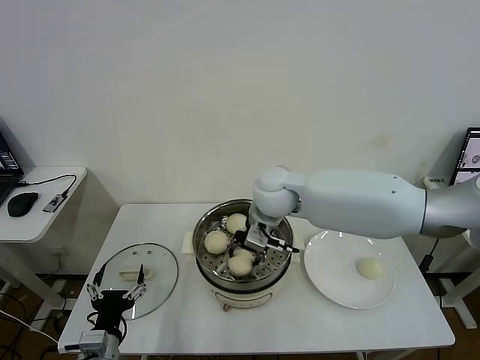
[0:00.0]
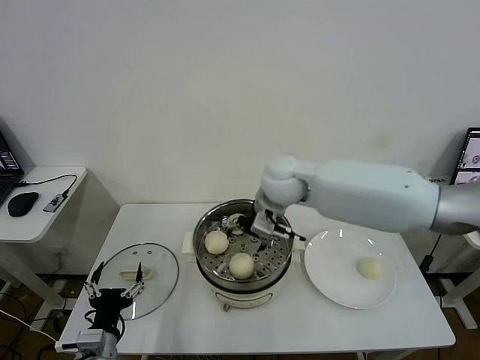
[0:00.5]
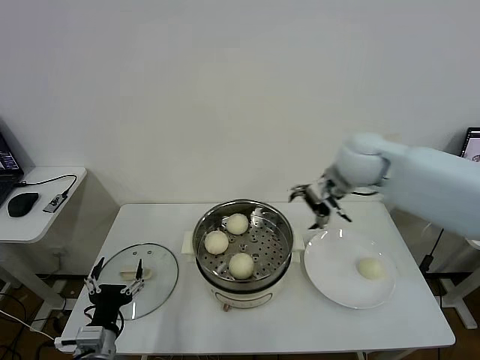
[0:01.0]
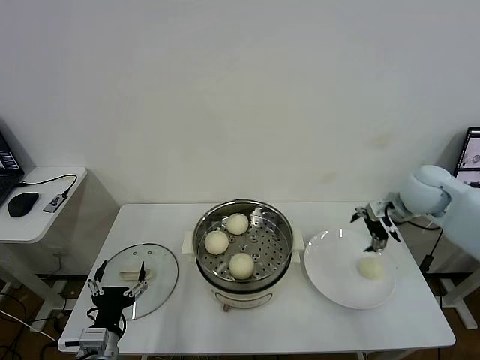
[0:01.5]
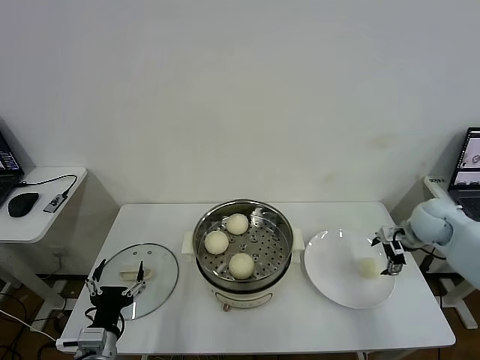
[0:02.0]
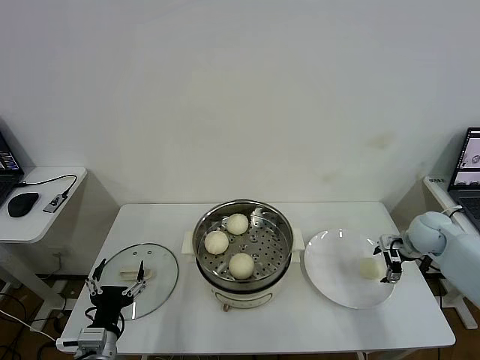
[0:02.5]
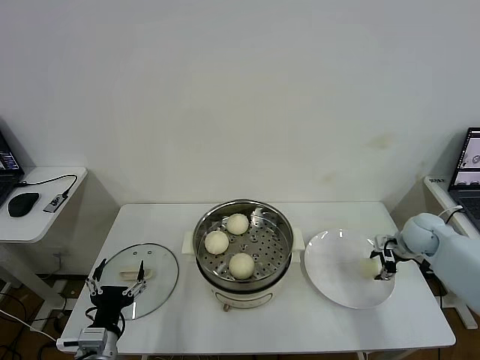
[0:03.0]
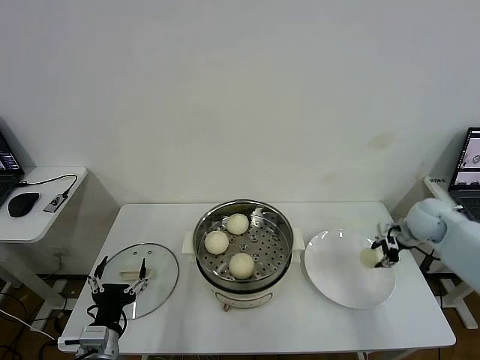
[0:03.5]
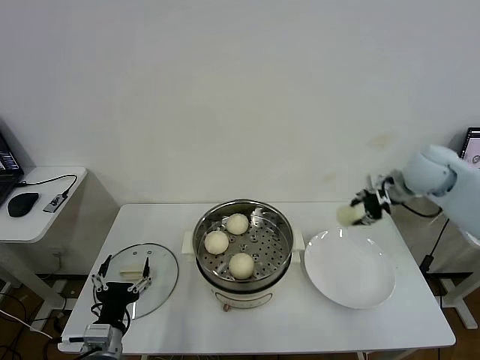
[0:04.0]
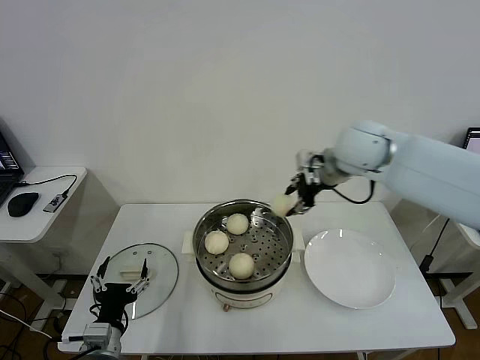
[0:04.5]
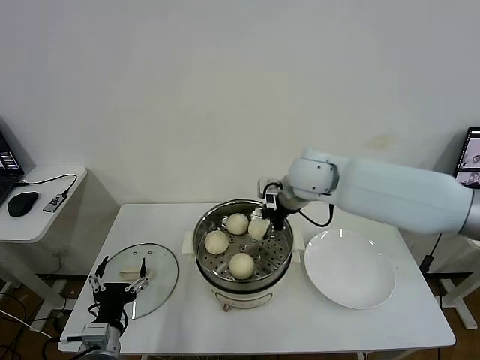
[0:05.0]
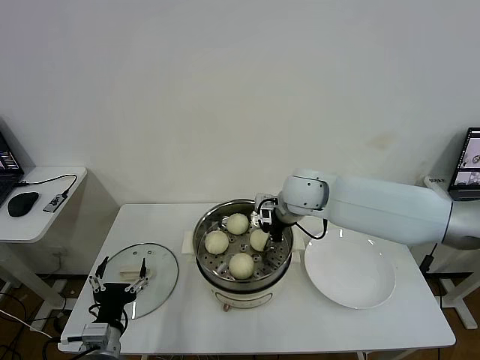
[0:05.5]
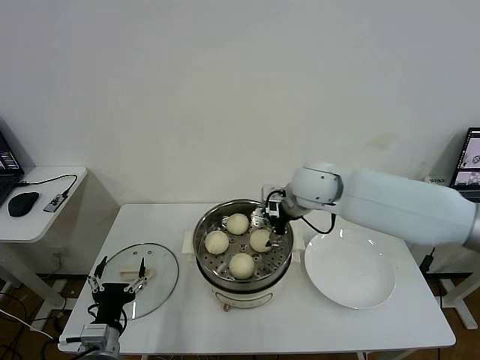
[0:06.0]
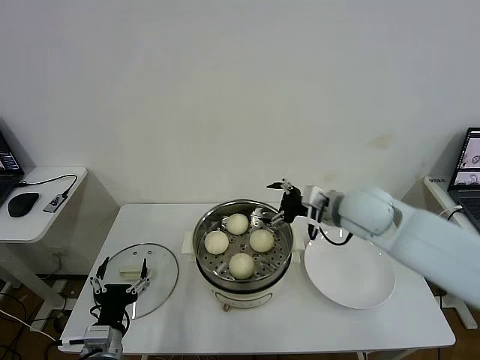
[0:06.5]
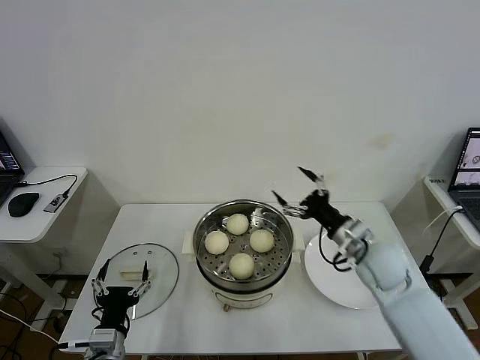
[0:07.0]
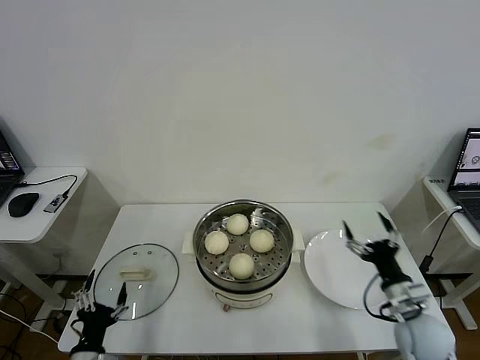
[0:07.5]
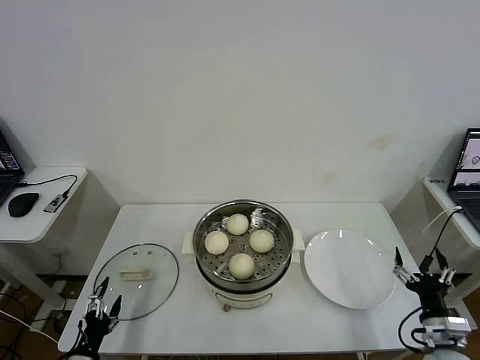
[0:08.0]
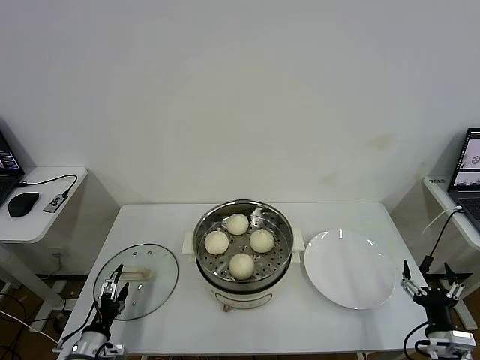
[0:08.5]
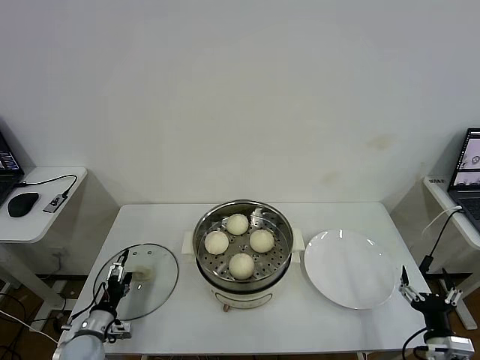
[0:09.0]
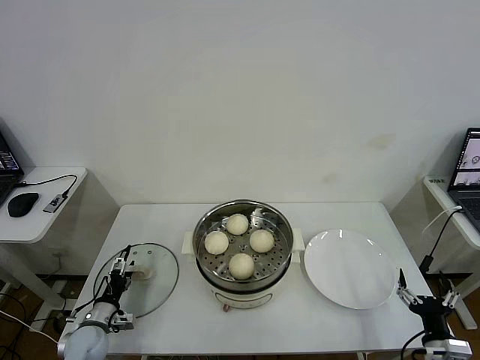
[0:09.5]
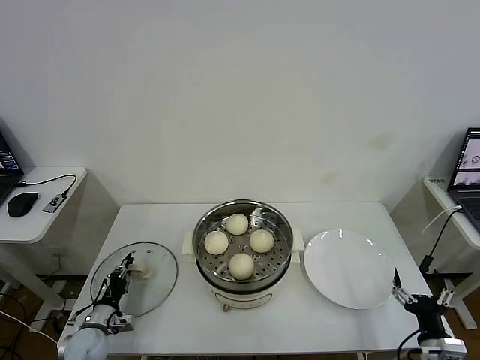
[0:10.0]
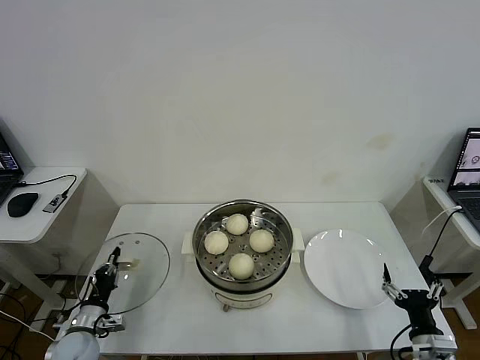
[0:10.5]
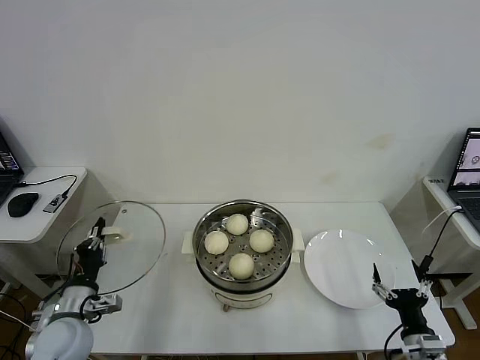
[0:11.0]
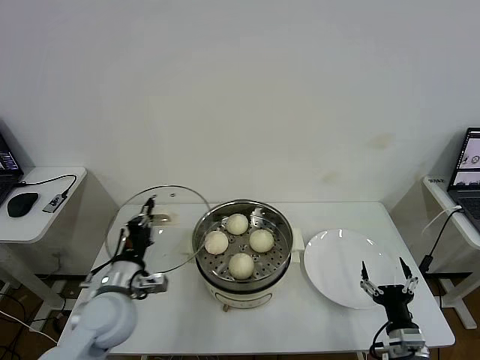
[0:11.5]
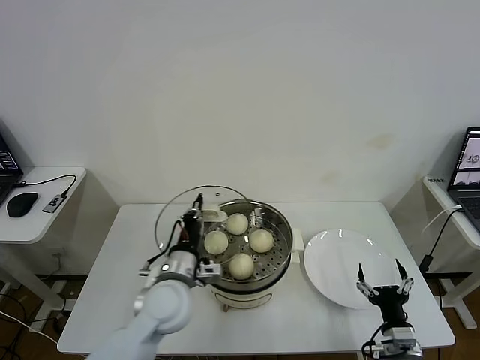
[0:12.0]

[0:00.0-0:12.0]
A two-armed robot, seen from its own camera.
Task of the whole recording: take steamed baozi put them in steamer then cover it.
Step, 0:00.5 to 0:03.0: Grasp the baozi in the plate with right gripper.
Step, 0:03.5 to 0:06.0: Place the baozi on the steamer with right gripper.
Step, 0:06.5 to 0:10.0: Grasp the pot lid with left gripper.
0:00.0 to 0:02.0: The right gripper is displaced to the right by approximately 35 cm, and opens.
0:02.0 to 0:04.0: The right gripper travels upward and to the left by about 15 cm, and closes.
0:04.0 to 0:06.0: The right gripper shifts roughly 20 cm to the left, and opens up.
0:06.0 to 0:08.0: The right gripper heads backward, to the right and downward, covering approximately 50 cm. The left gripper shifts some 10 cm to the left and downward.
0:08.0 to 0:10.0: The left gripper travels forward by about 15 cm, and closes.
0:10.0 to 0:12.0: The left gripper moves to the right and upward, about 30 cm. The right gripper travels to the left by about 5 cm.

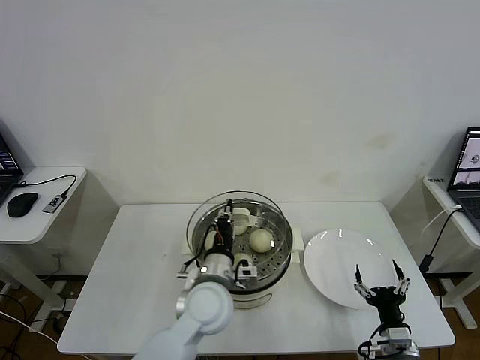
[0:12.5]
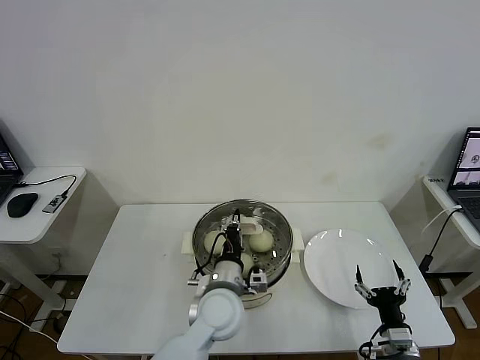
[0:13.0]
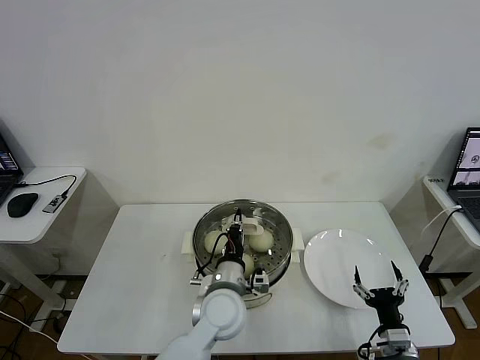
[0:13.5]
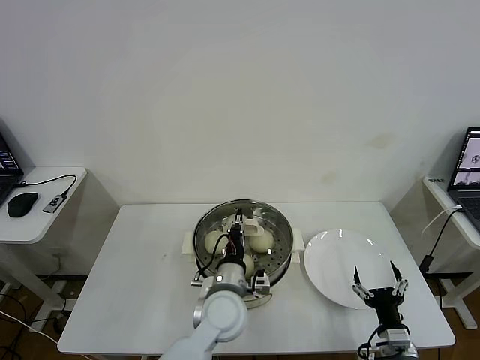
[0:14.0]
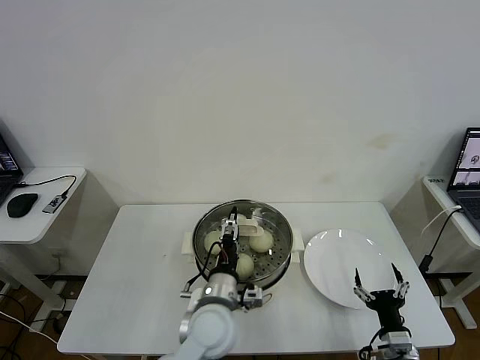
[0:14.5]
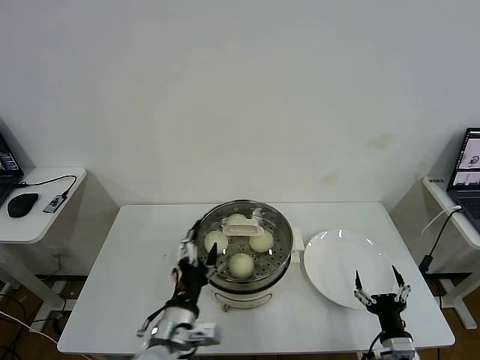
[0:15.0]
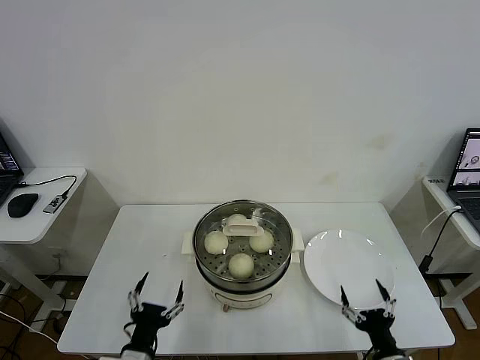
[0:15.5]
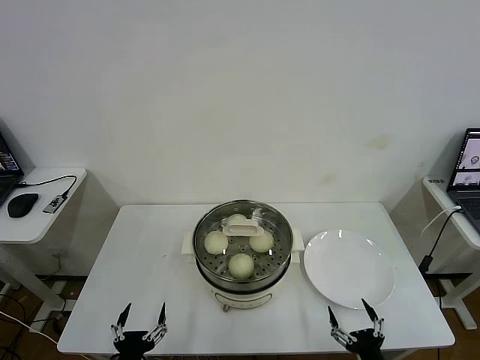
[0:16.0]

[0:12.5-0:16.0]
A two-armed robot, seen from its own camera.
Task of the whole recording: take steamed baozi put them in steamer then cover it.
Step, 0:12.5 to 0:14.5: Place the pot lid on the steamer with left gripper.
0:12.5 to 0:14.5: The left gripper opens its fingers.
0:14.5 to 0:16.0: The right gripper goes about 10 cm backward. The left gripper is displaced to the left, backward and downward by about 30 cm.

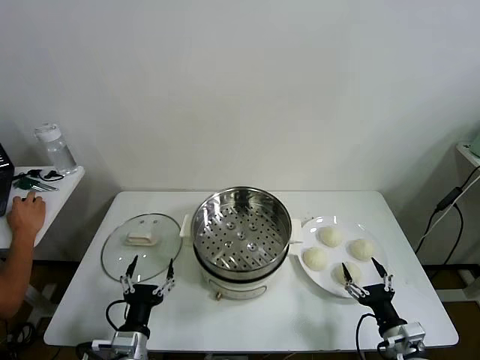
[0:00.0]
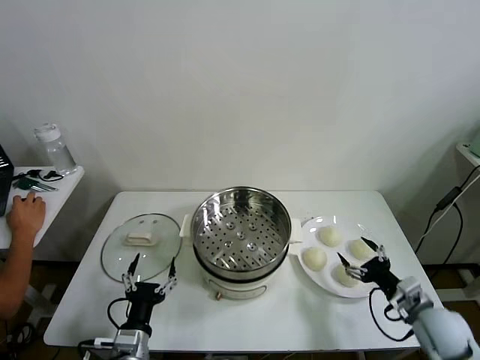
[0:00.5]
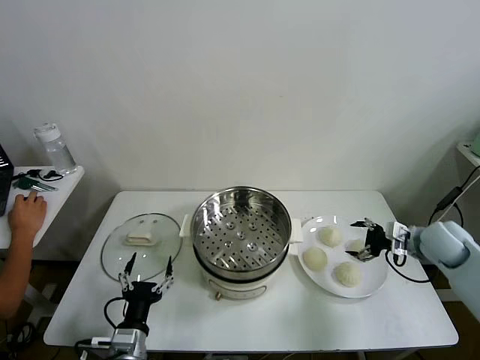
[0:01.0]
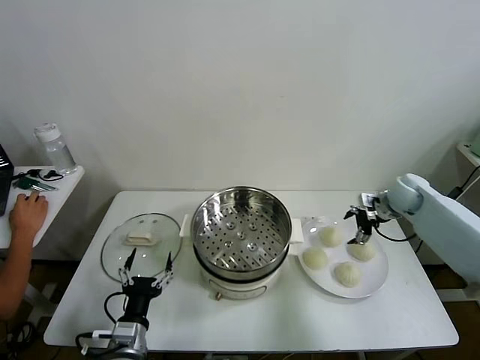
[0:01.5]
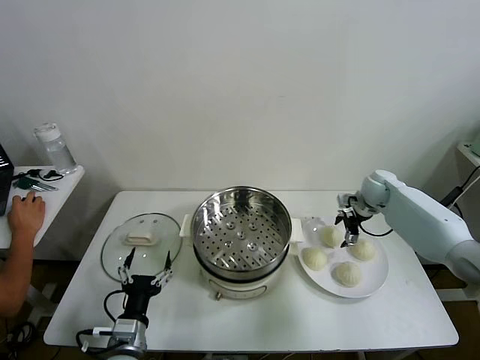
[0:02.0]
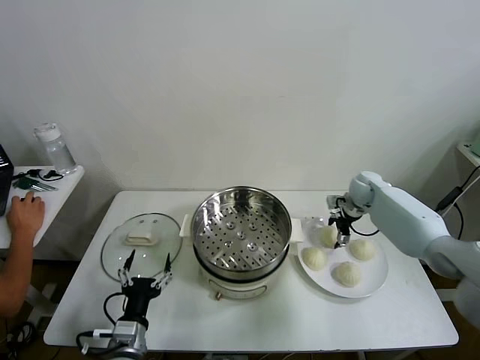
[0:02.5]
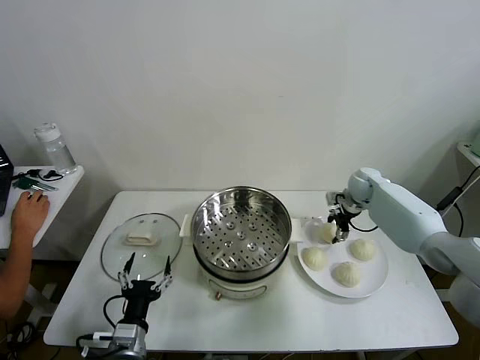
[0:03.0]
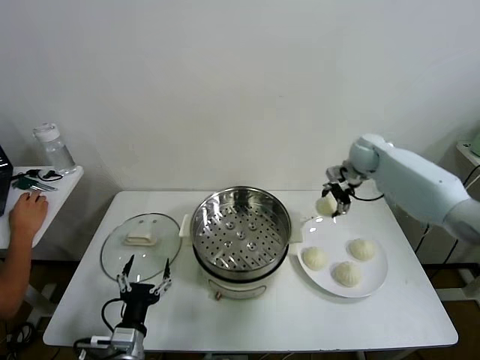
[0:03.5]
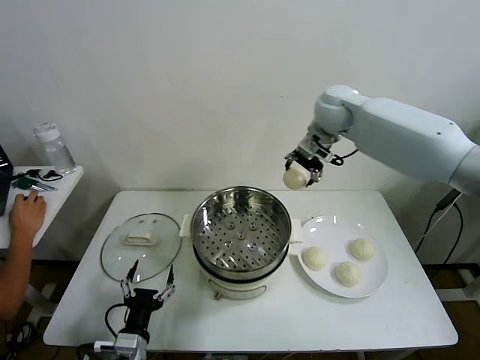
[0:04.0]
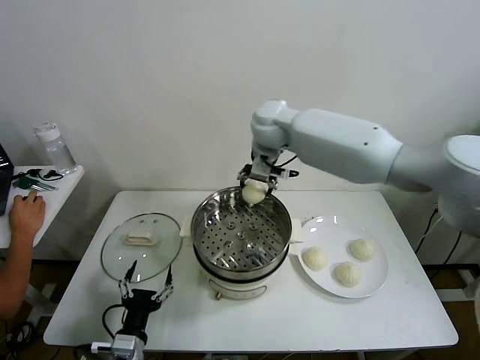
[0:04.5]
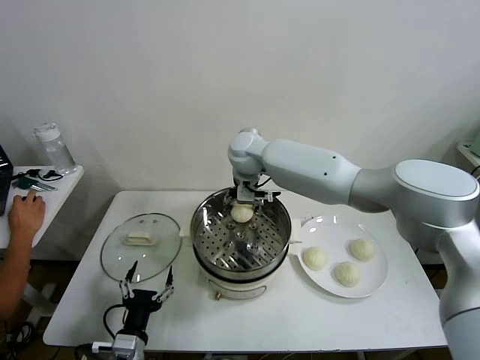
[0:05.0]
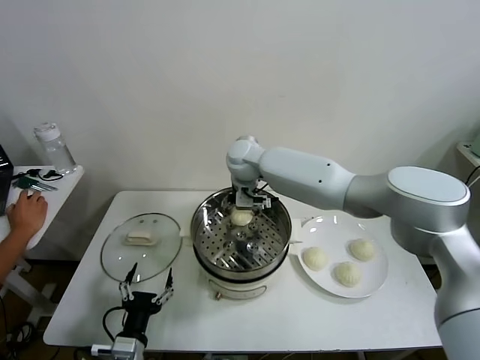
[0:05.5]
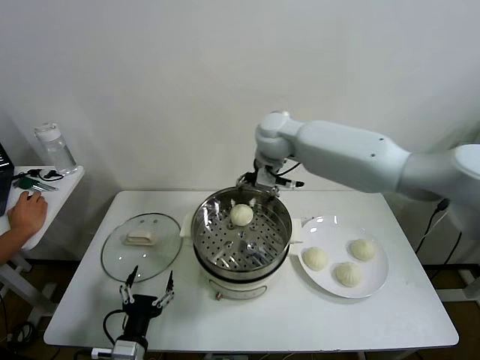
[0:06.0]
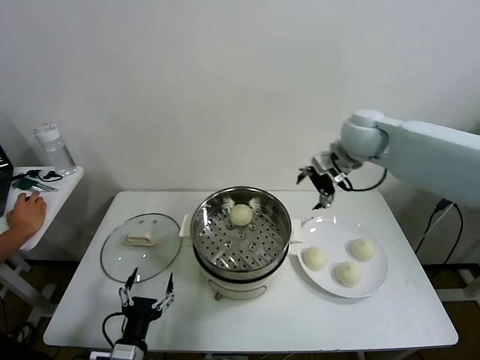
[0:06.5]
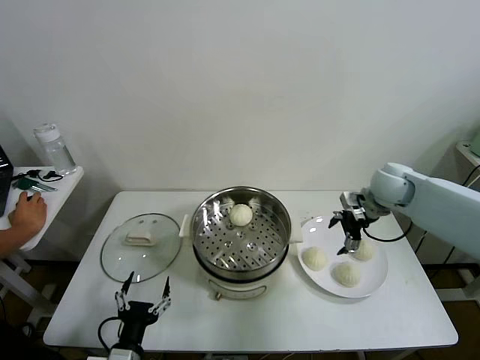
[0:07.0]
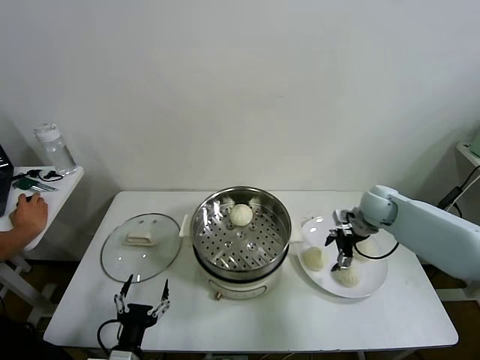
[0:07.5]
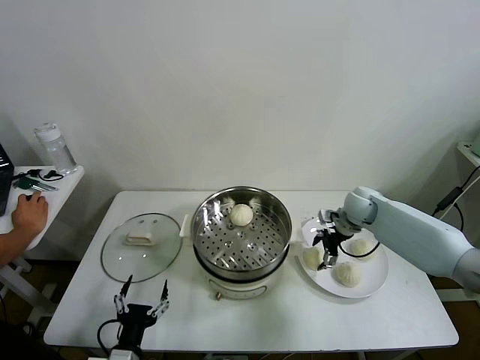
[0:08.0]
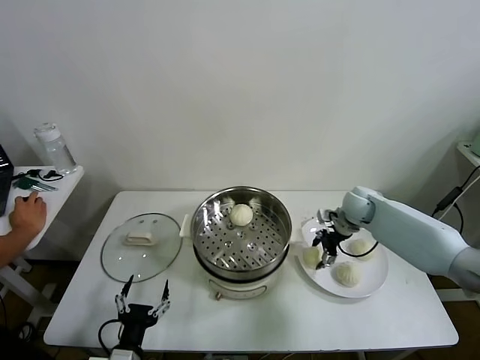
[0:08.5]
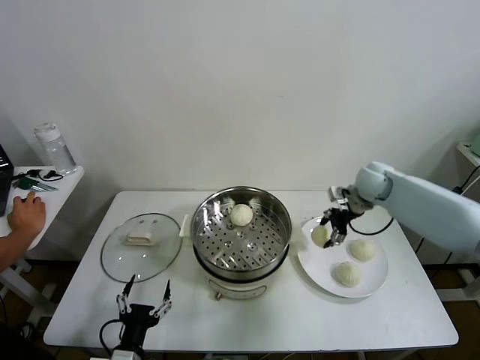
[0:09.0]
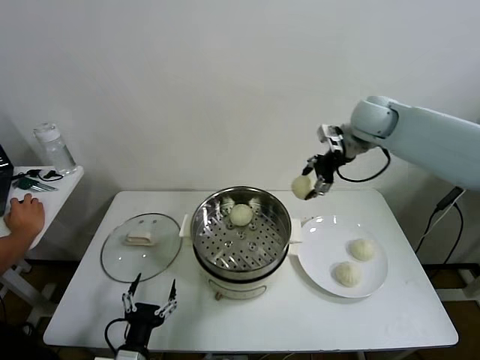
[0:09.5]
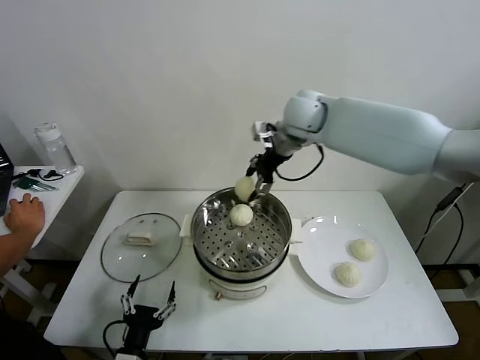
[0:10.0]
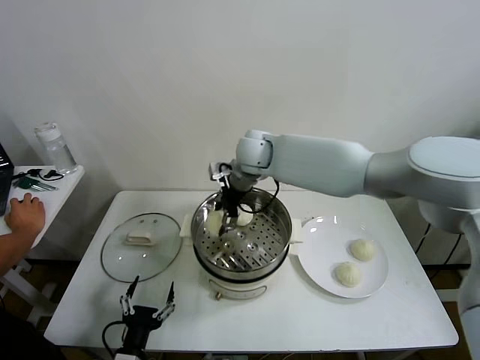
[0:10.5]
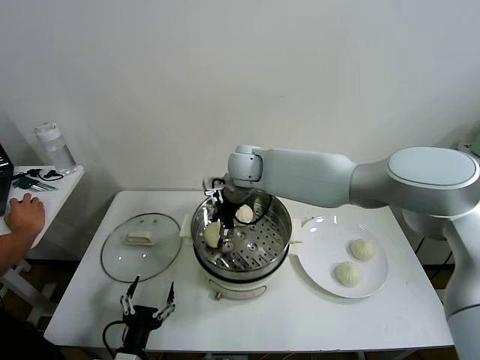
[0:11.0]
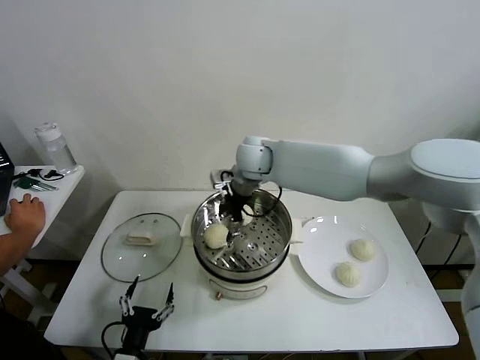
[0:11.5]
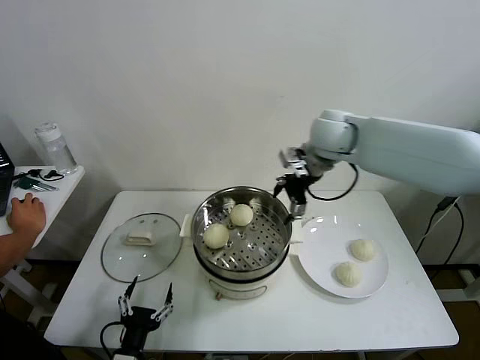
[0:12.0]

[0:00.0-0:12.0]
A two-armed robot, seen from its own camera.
Task of the whole recording: take steamed baozi put them in steamer then cover it.
Step, 0:00.0 to 0:02.5: Grasp the baozi in the plate with right gripper.
Step, 0:03.0 to 0:05.5: Place the baozi on the steamer with right gripper.
Step, 0:06.0 to 0:08.5: Grasp the baozi in the plate with right gripper.
Step, 0:09.0 to 0:11.0: Place the baozi on the steamer with right gripper.
0:02.0 to 0:04.0: The right gripper travels upward and to the left by approximately 35 cm, and closes its fingers.
0:04.0 to 0:06.0: The right gripper goes to the left and returns, approximately 15 cm each way, and opens.
0:06.0 to 0:08.0: The right gripper goes about 30 cm downward and to the right.
0:08.0 to 0:10.0: The right gripper moves upward and to the left, roughly 30 cm, and closes up.
0:10.0 to 0:12.0: The right gripper shifts some 15 cm to the right, and opens.
